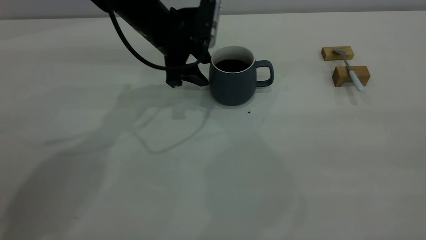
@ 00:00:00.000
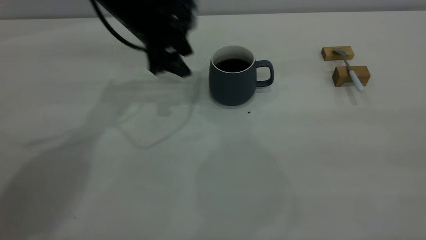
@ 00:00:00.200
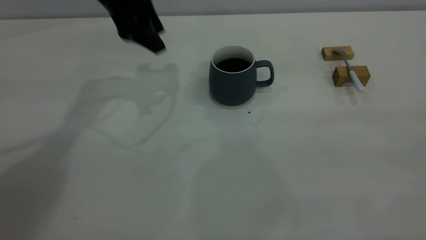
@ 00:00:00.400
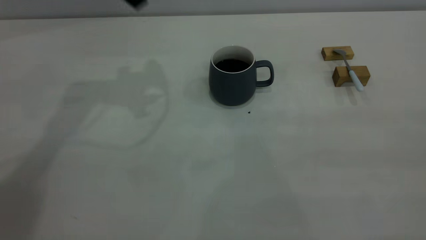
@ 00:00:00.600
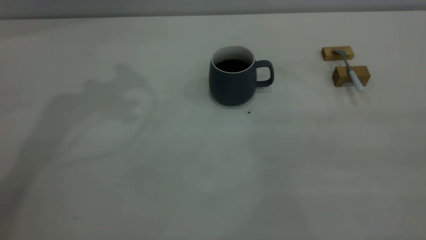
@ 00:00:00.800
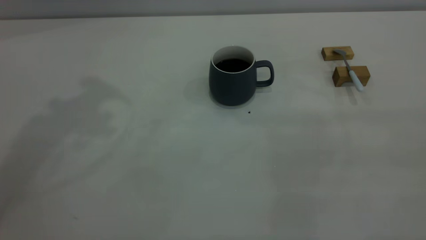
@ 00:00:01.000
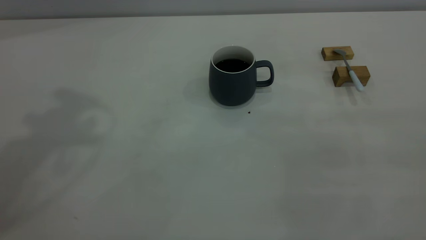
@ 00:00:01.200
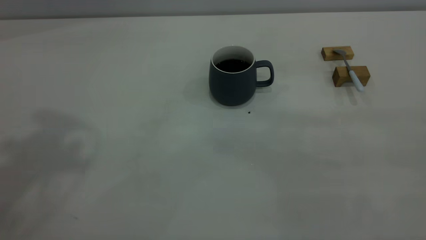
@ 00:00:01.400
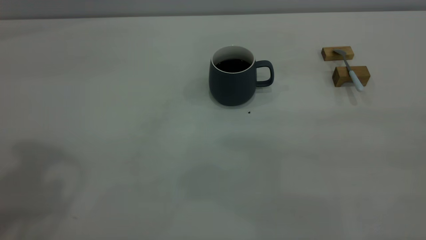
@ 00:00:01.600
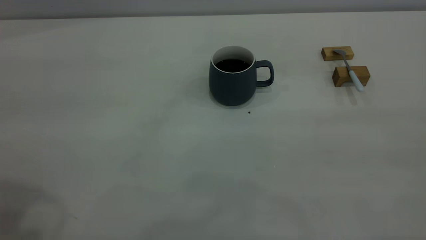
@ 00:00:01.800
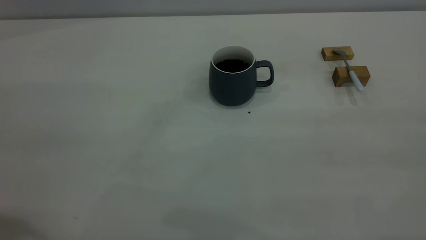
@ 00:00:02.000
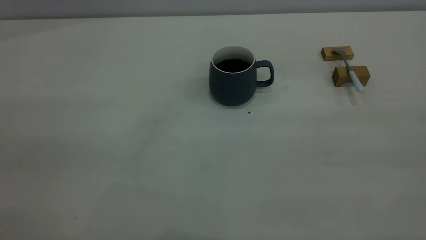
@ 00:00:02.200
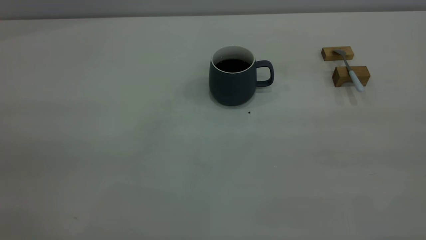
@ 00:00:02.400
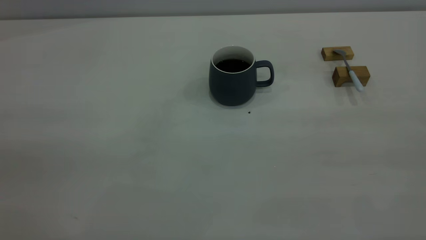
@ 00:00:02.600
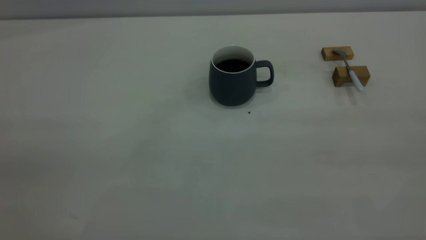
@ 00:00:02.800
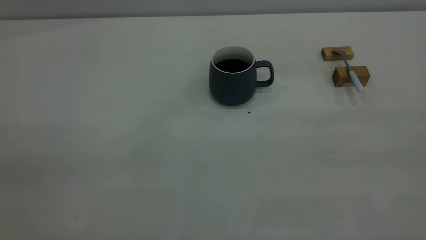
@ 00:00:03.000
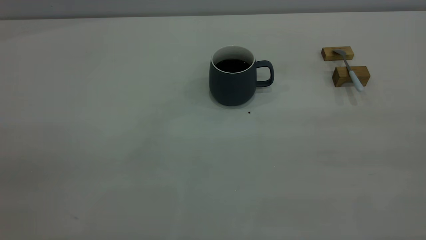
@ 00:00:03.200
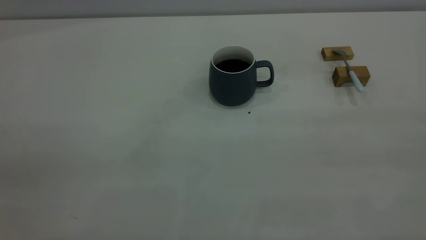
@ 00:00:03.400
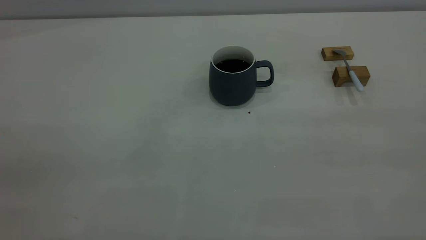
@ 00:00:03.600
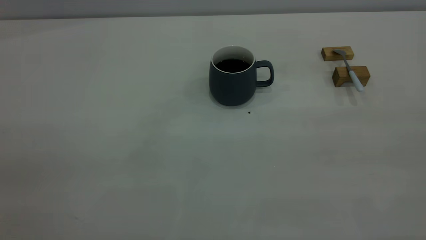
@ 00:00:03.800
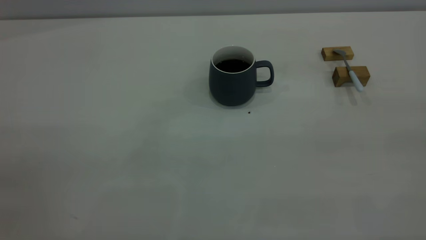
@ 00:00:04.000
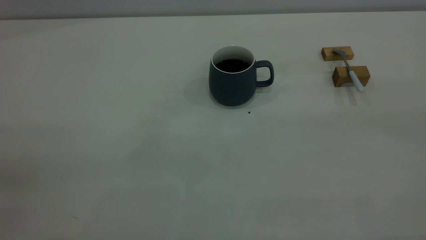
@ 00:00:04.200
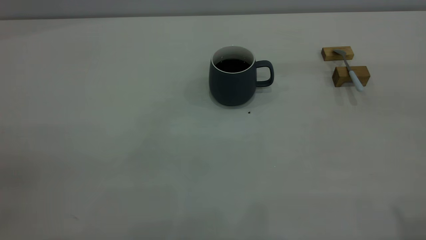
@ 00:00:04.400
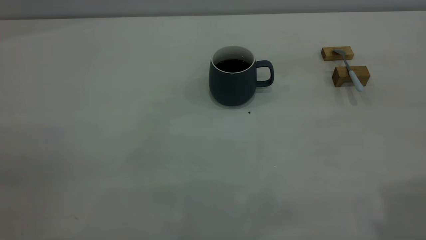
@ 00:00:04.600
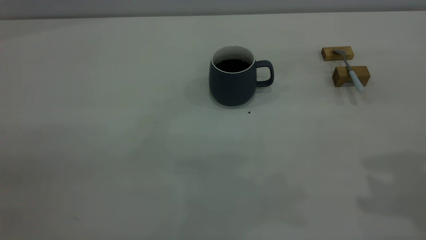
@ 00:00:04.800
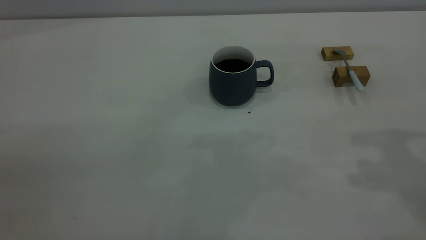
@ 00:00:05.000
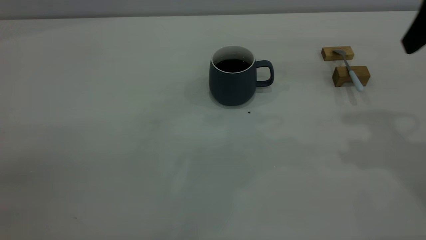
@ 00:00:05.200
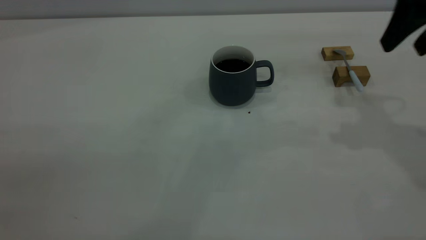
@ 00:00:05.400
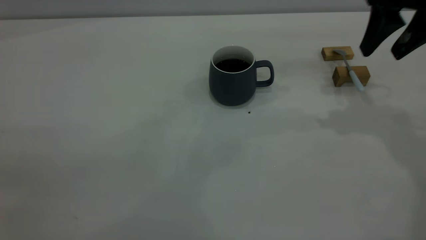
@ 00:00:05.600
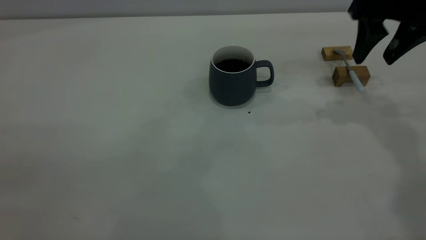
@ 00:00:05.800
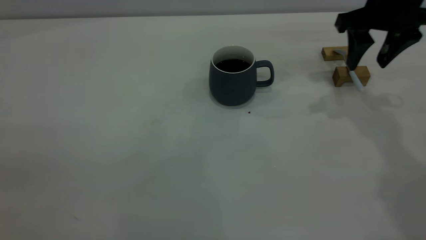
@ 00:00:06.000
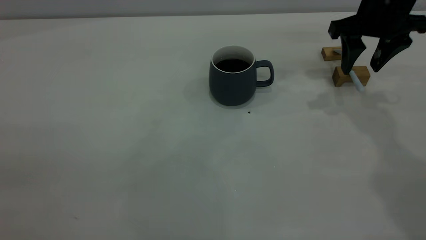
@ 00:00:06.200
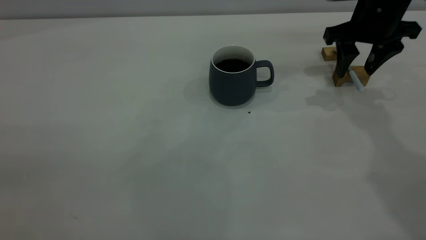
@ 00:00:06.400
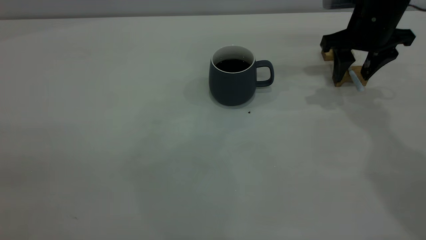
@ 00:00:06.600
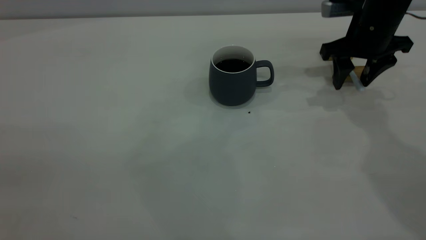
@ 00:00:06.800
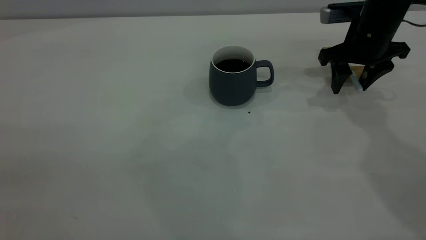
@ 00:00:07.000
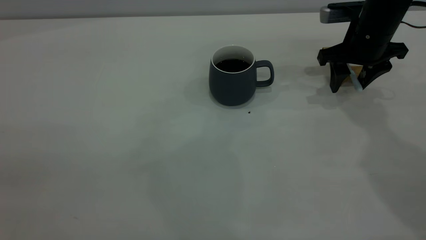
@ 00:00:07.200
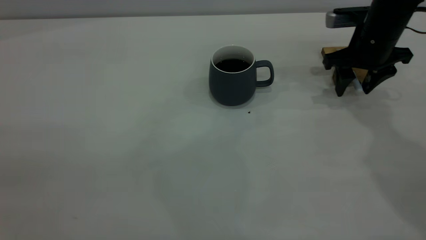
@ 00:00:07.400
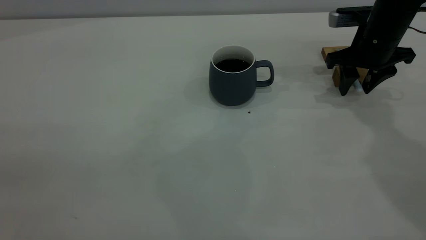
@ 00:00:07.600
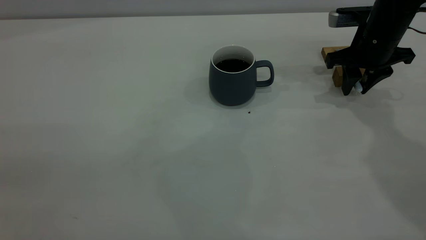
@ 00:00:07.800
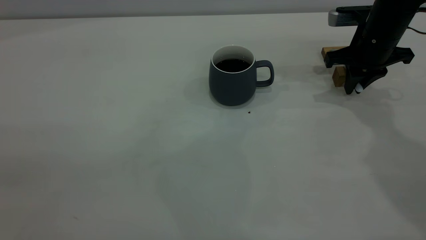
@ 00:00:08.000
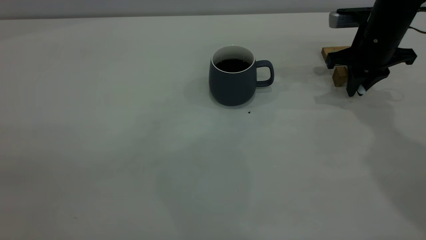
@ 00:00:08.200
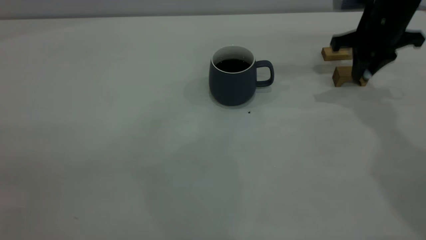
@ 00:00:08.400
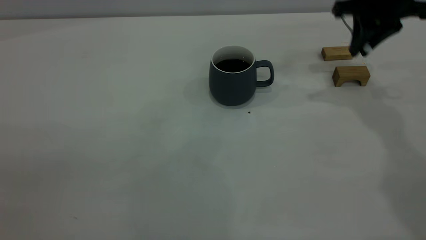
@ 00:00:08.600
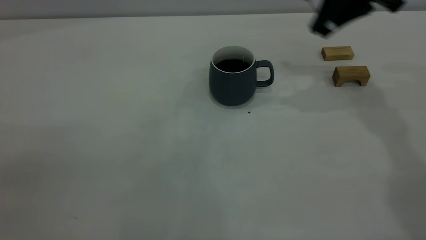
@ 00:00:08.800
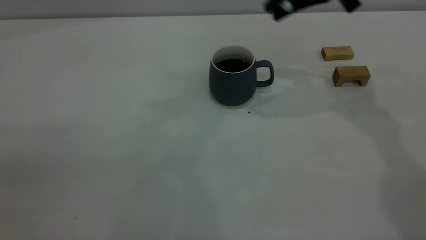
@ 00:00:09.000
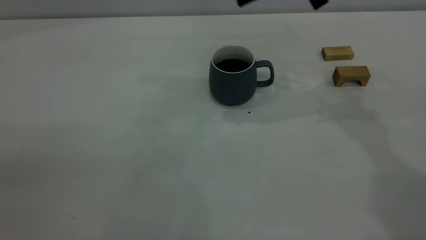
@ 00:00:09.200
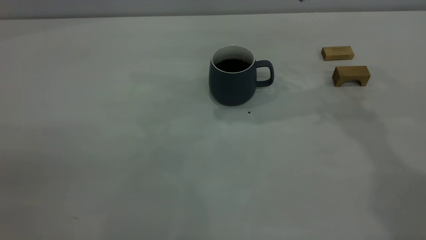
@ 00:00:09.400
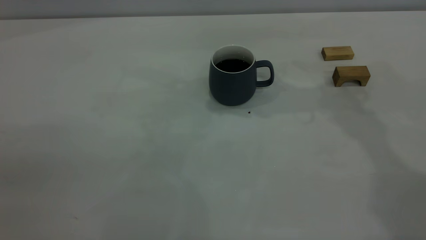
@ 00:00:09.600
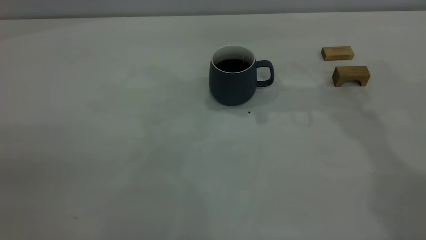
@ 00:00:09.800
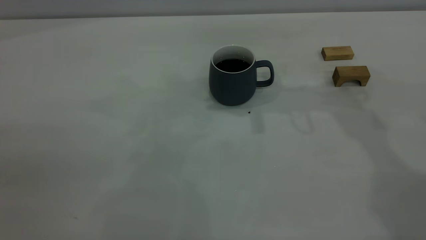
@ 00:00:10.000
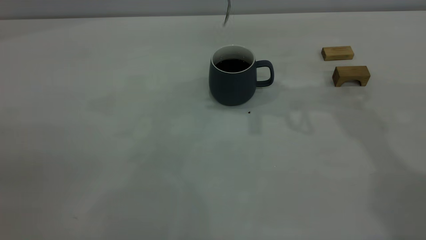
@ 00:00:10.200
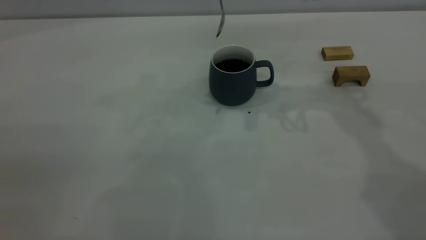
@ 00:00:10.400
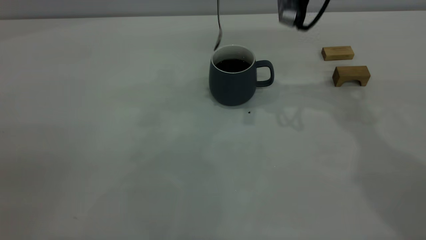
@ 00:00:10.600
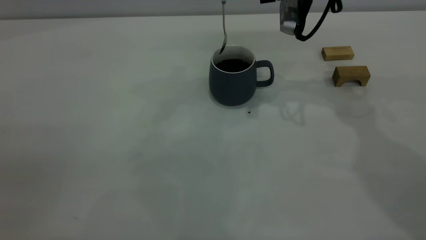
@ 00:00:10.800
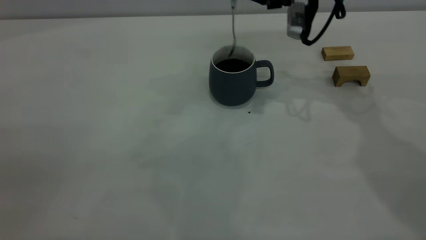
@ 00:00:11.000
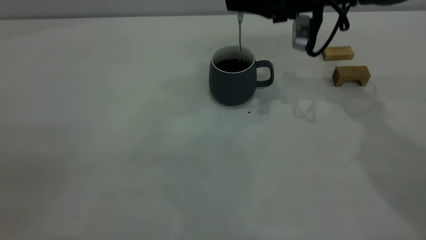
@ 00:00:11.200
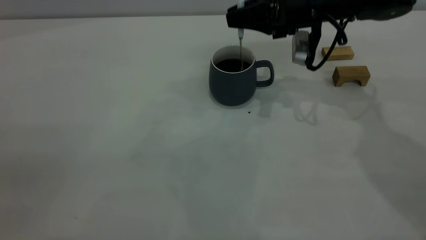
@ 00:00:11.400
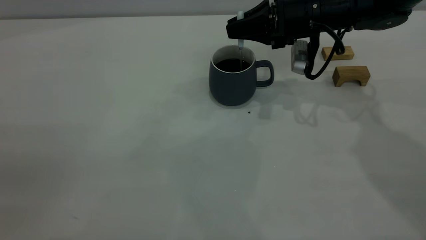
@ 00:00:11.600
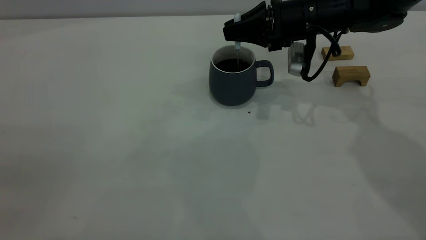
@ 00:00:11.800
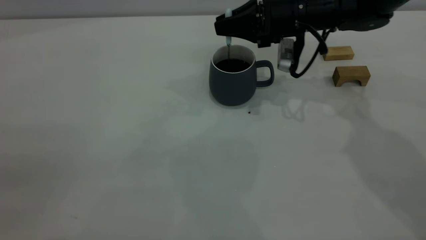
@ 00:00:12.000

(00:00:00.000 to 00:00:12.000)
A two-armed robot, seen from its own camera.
Step, 00:00:00.400 - 00:00:08.400: Pick up the spoon.
00:00:00.000 - 00:00:01.600: The left gripper moves upward, backward and to the left, roughly 40 cm.
00:00:04.400 - 00:00:06.000: The right gripper heads forward and downward, covering about 35 cm.
00:00:06.000 - 00:00:07.600: The right gripper shifts some 10 cm downward.
00:00:07.600 - 00:00:09.000: The right gripper travels upward and to the left by approximately 15 cm, and closes its fingers.
00:00:10.400 - 00:00:12.000: The right gripper goes some 15 cm downward.

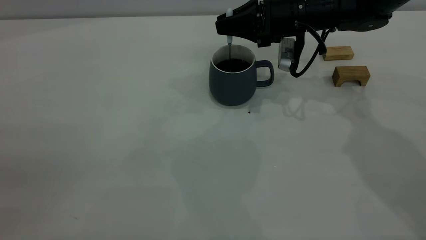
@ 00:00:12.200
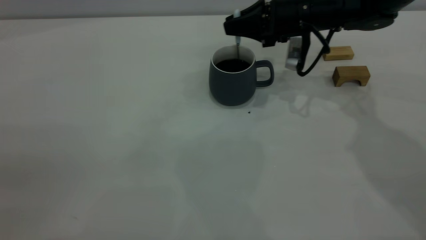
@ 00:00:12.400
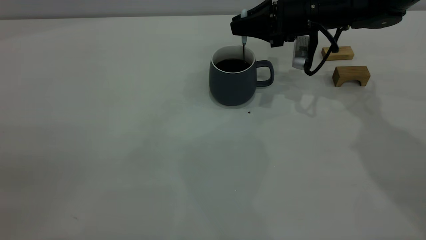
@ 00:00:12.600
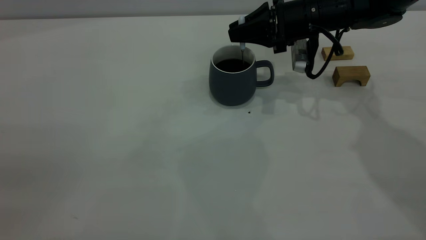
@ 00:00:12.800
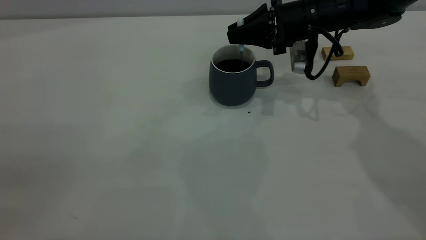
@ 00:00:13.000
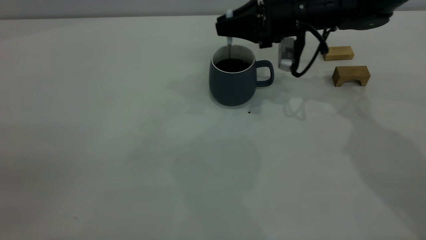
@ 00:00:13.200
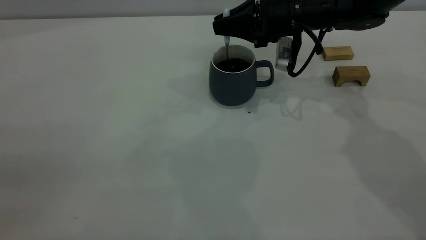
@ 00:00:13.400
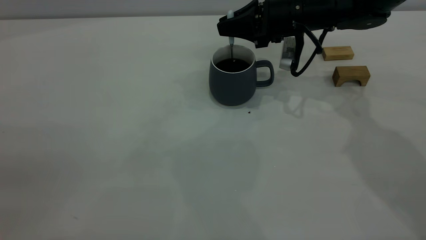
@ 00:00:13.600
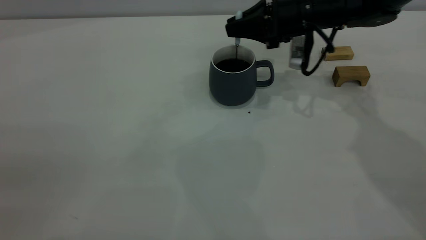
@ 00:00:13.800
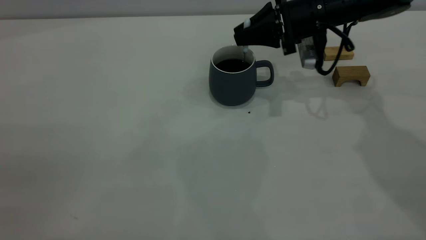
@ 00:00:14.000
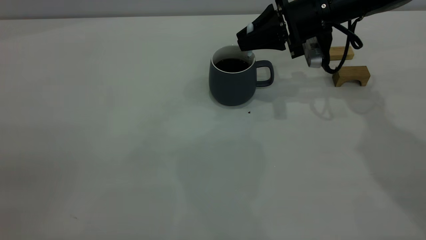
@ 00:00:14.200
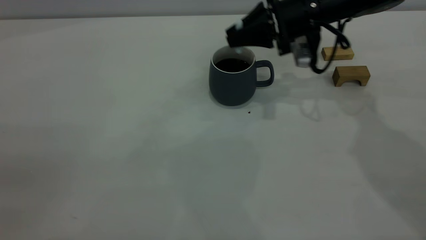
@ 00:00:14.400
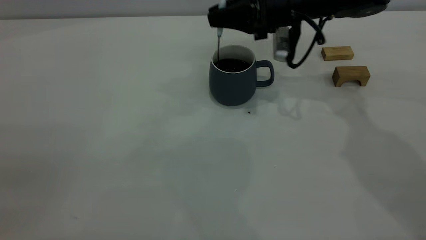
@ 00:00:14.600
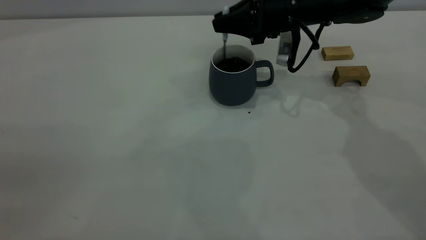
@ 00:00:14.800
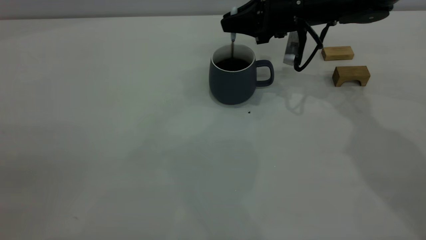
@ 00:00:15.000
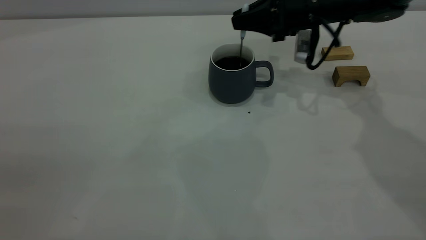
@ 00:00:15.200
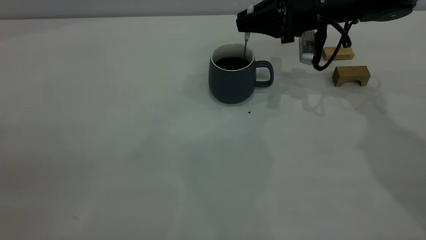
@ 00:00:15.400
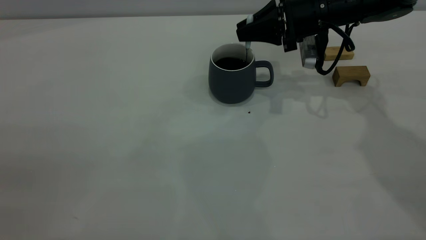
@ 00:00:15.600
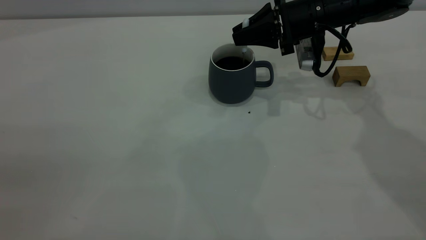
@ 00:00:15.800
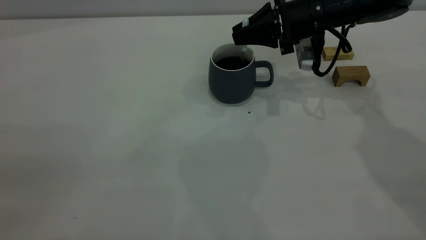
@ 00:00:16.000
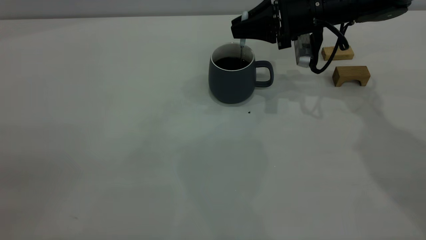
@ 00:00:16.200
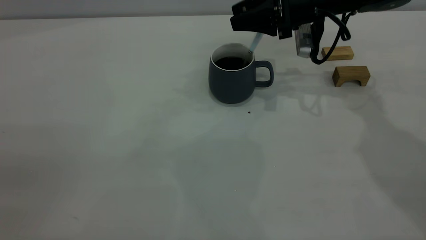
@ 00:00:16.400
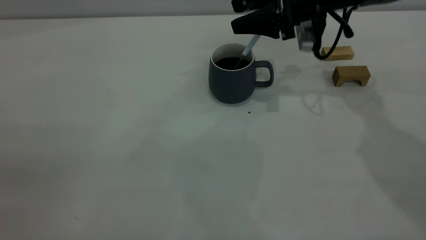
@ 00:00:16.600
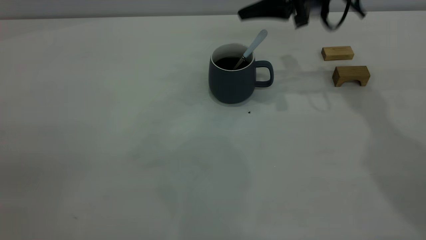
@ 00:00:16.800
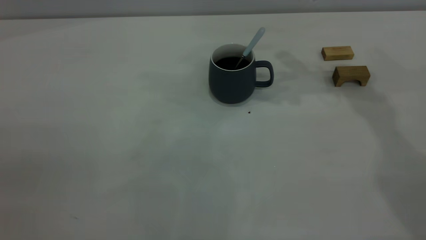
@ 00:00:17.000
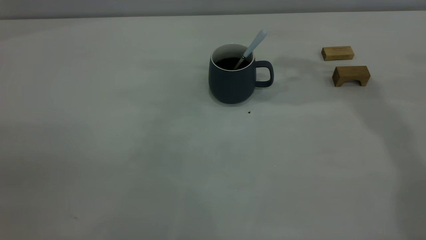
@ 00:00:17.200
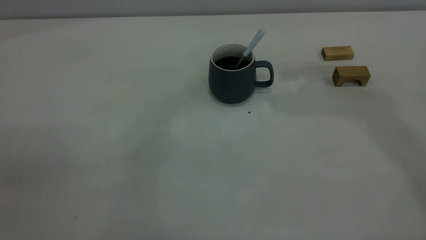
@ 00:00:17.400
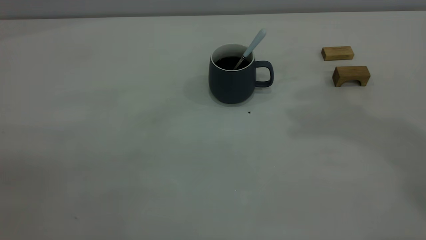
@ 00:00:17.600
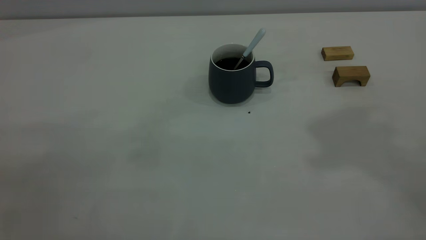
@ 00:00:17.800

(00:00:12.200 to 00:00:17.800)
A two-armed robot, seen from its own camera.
Step, 00:00:12.200 - 00:00:16.800: Stir the coffee in the cup.
00:00:12.200 - 00:00:15.000: The grippers stay close to where they were, moving slightly.
00:00:15.000 - 00:00:16.400: The right gripper opens its fingers.
00:00:16.400 - 00:00:17.800: The right gripper moves upward and backward, roughly 50 cm, and closes.
